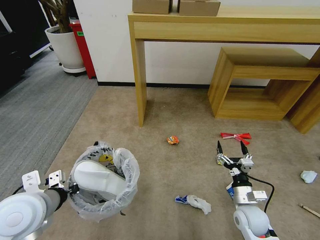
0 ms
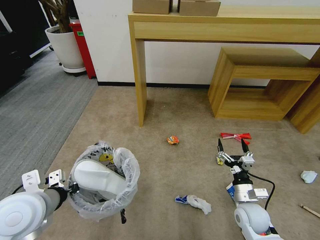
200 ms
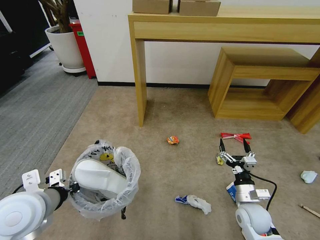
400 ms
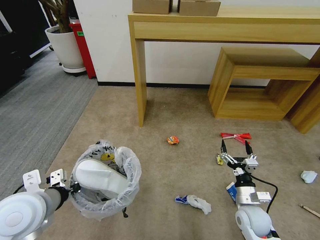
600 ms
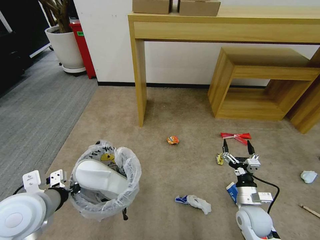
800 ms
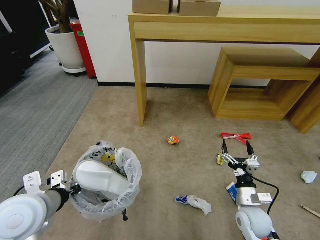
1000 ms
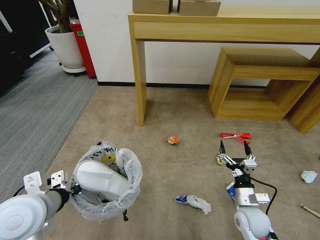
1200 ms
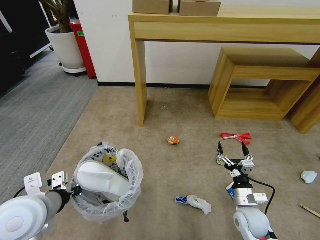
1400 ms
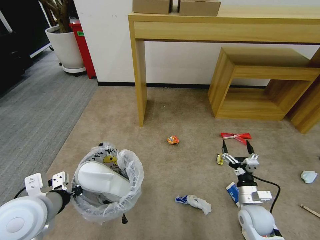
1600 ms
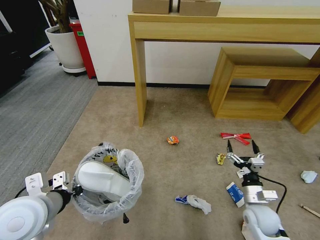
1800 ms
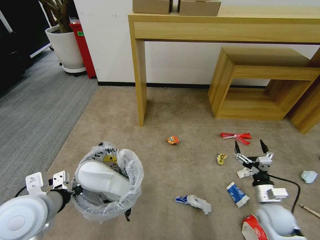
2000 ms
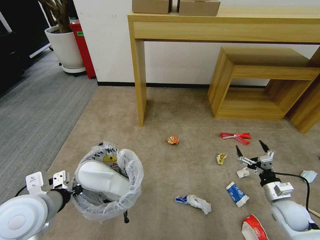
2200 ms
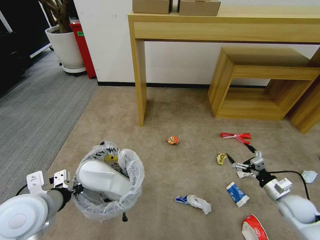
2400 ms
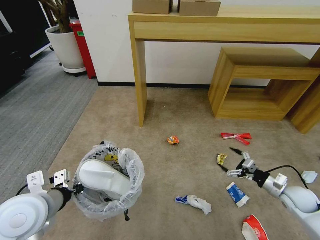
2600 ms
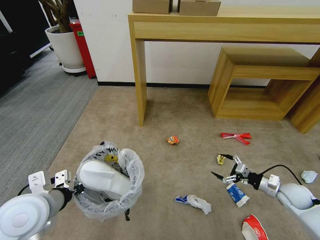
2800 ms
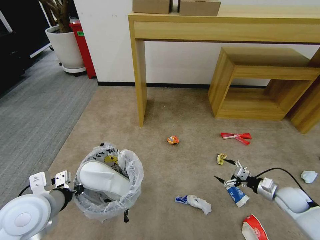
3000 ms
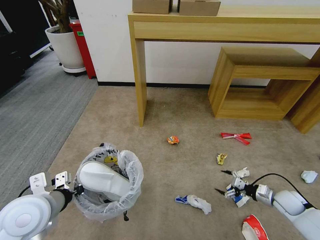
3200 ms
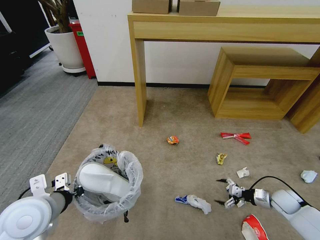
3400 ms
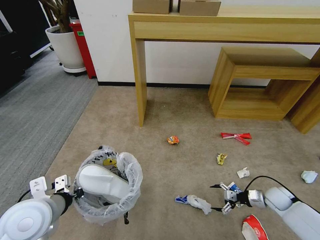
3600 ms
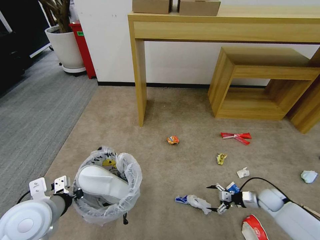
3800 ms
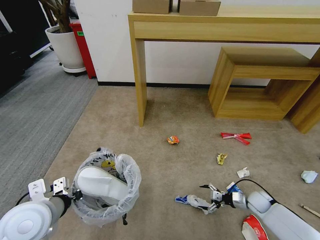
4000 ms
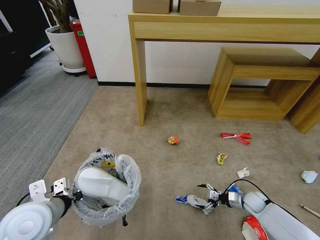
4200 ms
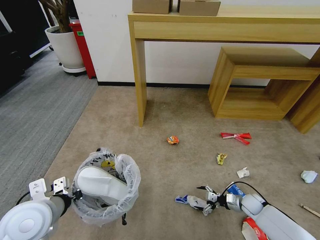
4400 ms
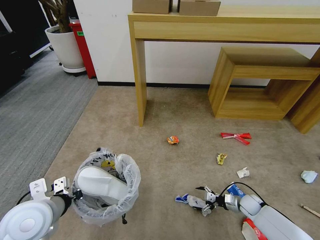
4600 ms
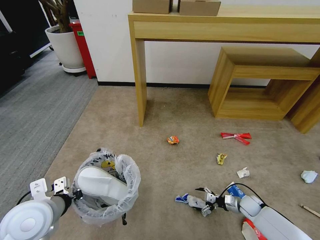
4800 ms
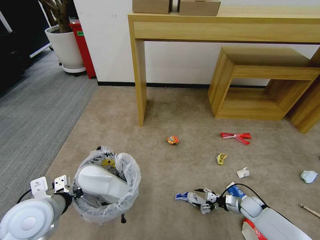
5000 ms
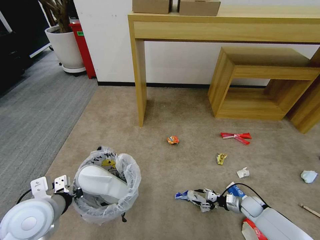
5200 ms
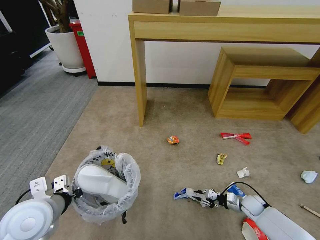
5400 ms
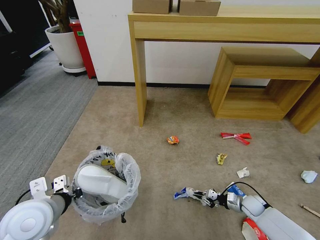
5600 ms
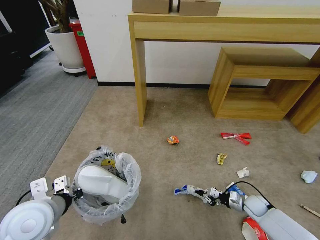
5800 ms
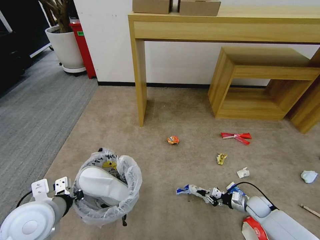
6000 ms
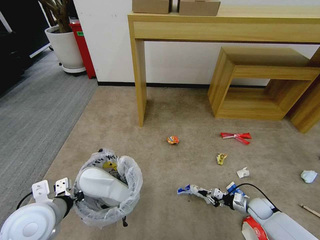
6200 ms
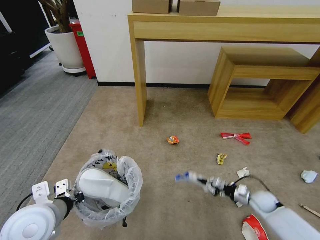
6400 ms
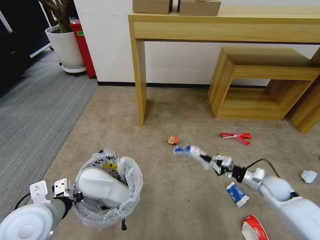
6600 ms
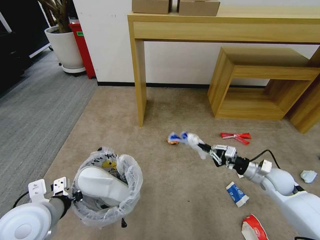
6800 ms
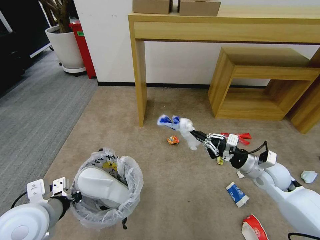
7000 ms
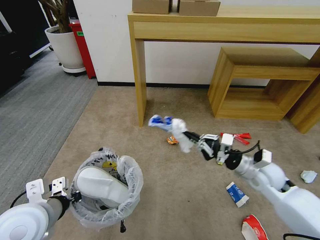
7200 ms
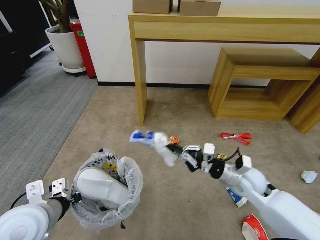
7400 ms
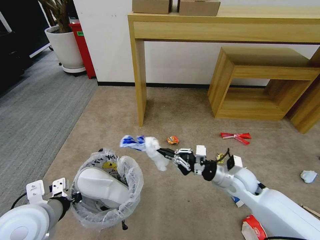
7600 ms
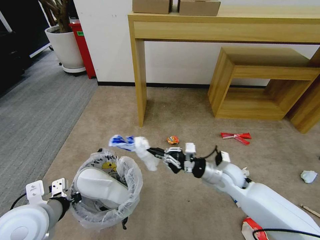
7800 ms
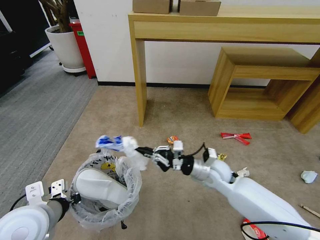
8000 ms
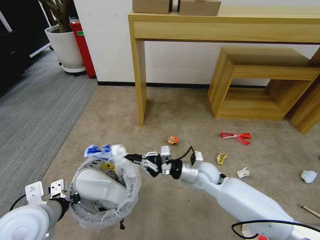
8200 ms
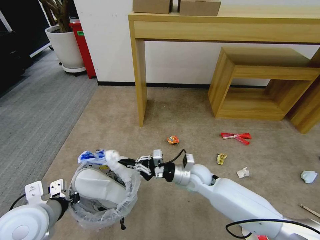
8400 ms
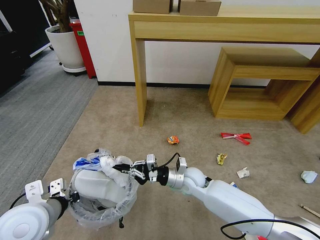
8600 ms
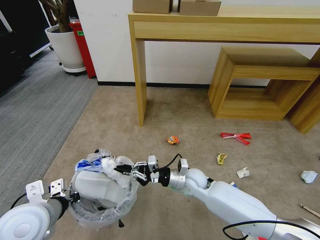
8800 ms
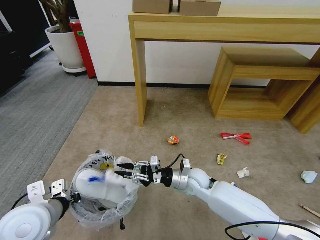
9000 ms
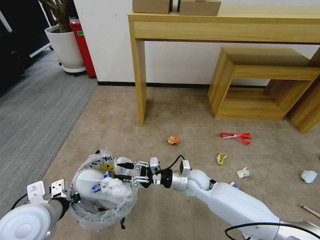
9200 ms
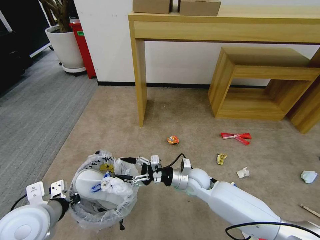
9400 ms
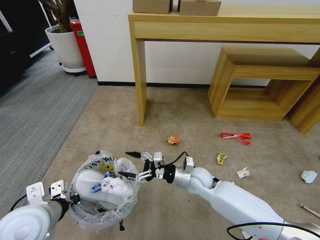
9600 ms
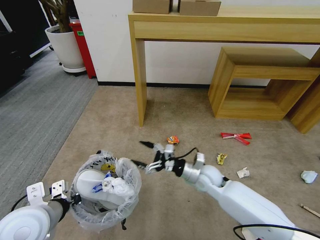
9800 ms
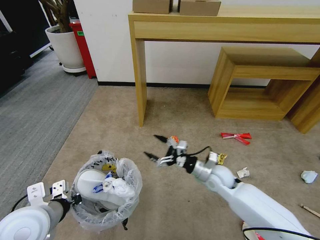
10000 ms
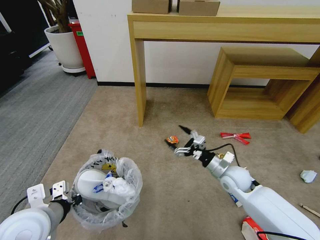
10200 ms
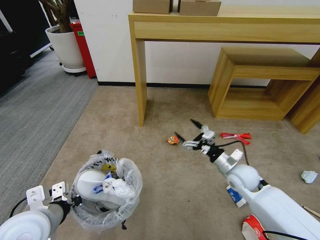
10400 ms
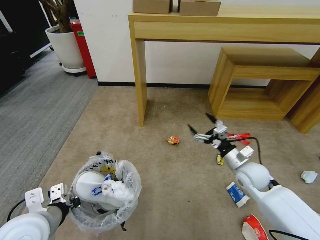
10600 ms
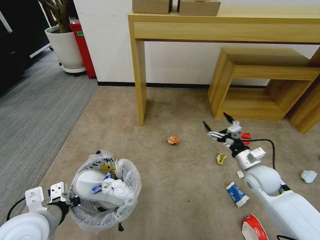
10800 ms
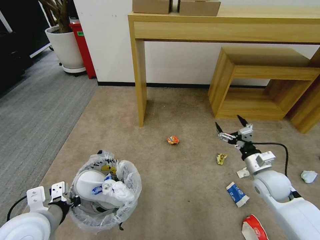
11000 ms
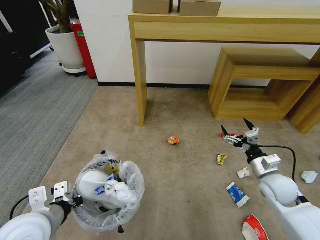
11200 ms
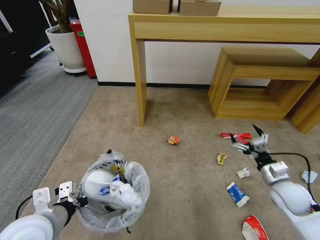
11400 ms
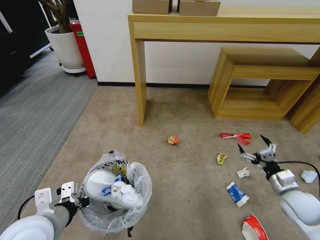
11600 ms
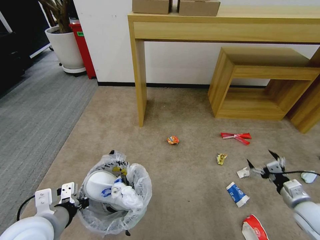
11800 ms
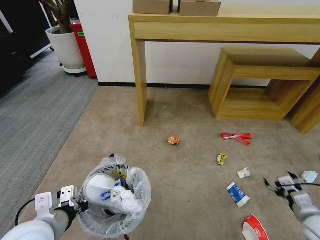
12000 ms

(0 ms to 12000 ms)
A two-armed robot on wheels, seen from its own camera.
Task of the whole recording: Pick up the trash bin and place the garbage on the floor into it.
0 ms - 1600 ms: The grippers move only a little.
1600 ms - 3000 ms: The right gripper travels to the right by roughly 15 cm.
3000 ms - 4400 ms: The right gripper moves downward and to the left, approximately 15 cm.
4400 ms - 6000 ms: The right gripper closes up.
6000 ms - 7600 ms: The right gripper travels upward and to the left by about 30 cm.
7600 ms - 9000 ms: The right gripper shifts approximately 15 cm to the left and downward.
9000 ms - 10400 ms: The right gripper moves to the right, about 15 cm, and opens its fingers.
10400 ms - 12000 ms: The right gripper is displaced to the right and backward by roughly 25 cm.

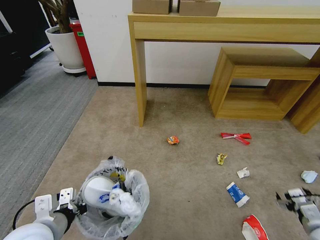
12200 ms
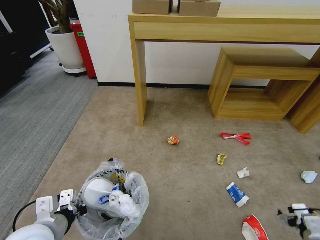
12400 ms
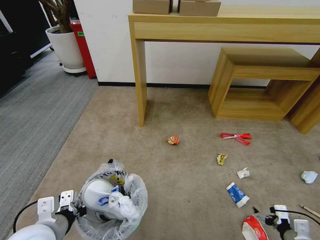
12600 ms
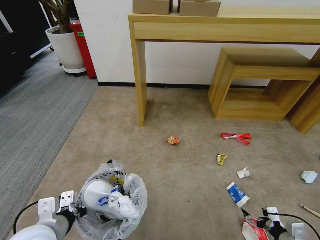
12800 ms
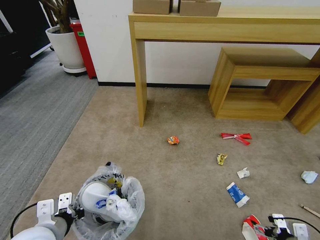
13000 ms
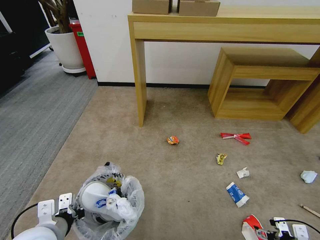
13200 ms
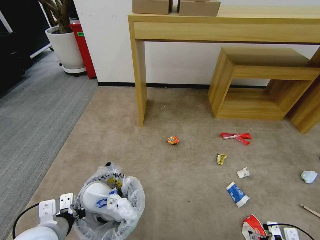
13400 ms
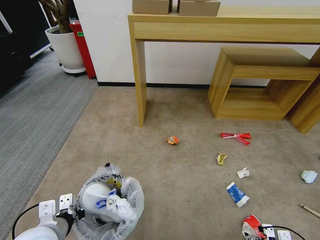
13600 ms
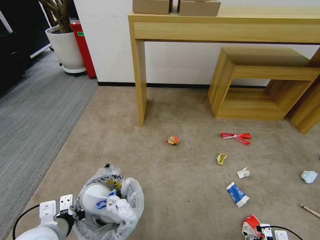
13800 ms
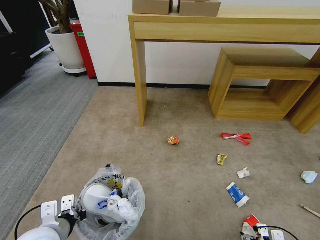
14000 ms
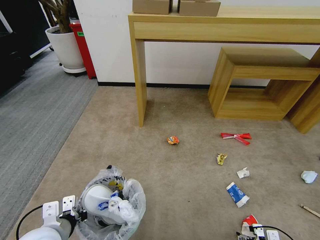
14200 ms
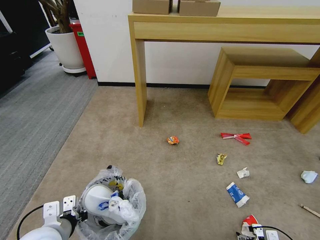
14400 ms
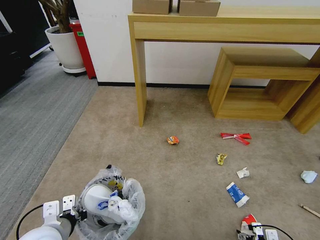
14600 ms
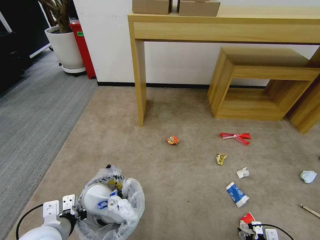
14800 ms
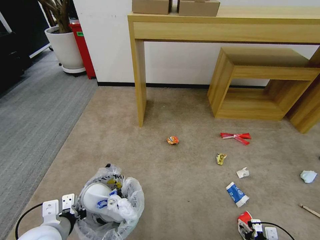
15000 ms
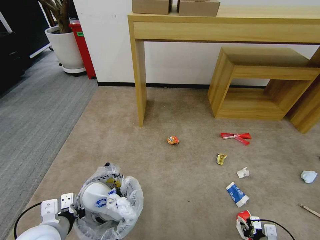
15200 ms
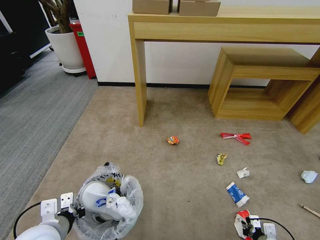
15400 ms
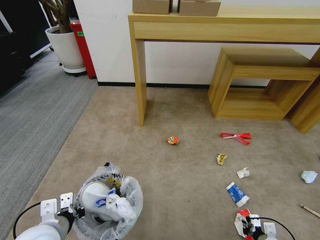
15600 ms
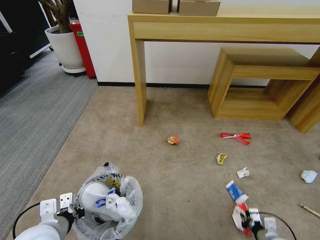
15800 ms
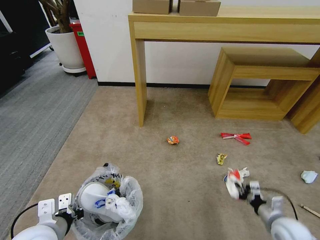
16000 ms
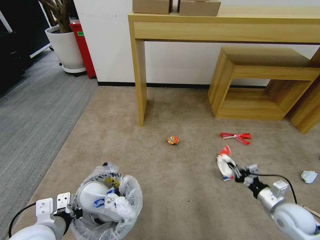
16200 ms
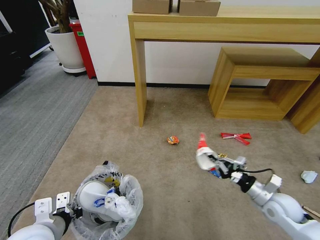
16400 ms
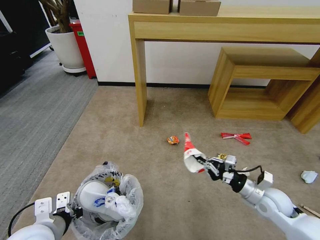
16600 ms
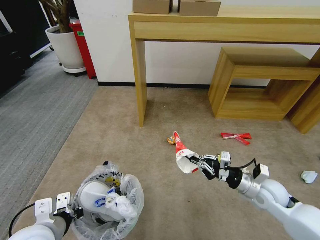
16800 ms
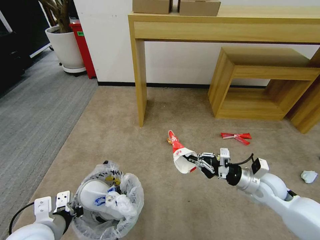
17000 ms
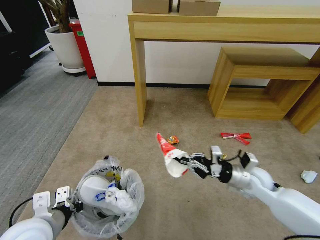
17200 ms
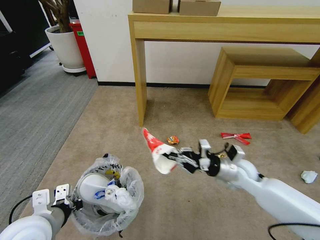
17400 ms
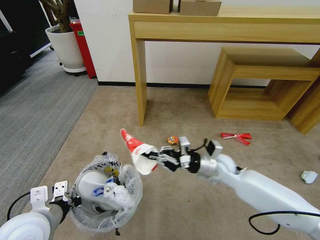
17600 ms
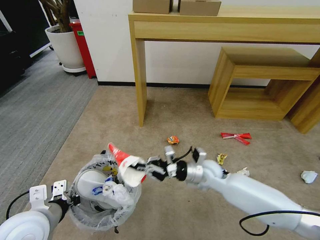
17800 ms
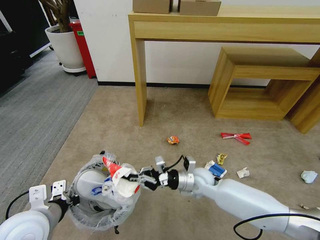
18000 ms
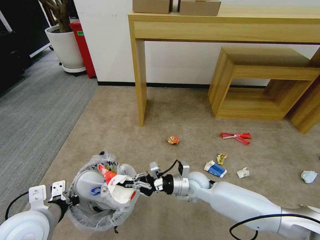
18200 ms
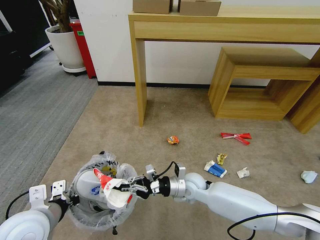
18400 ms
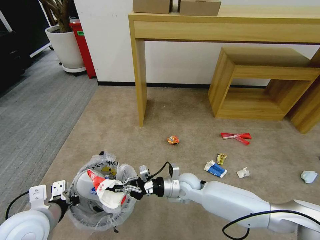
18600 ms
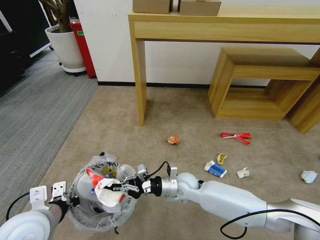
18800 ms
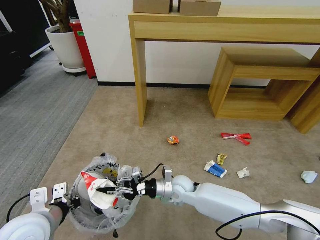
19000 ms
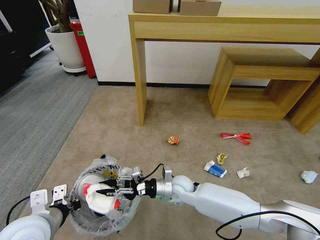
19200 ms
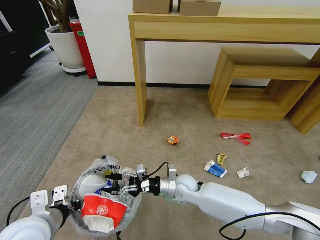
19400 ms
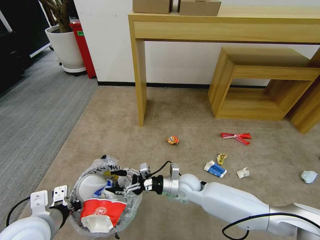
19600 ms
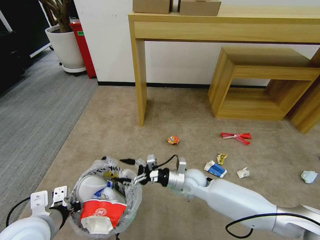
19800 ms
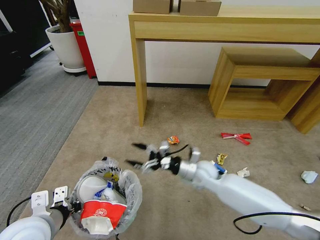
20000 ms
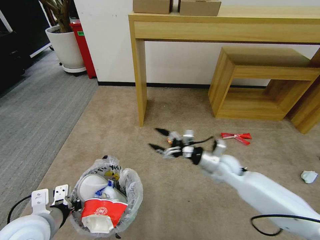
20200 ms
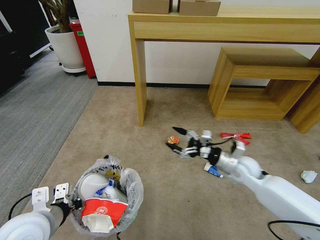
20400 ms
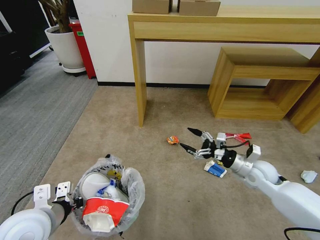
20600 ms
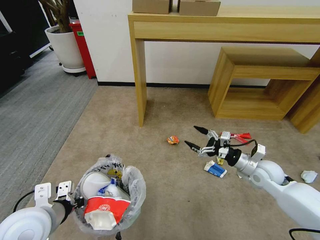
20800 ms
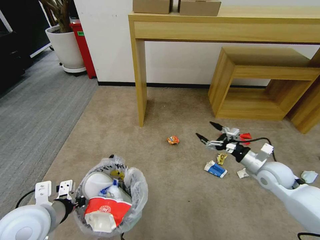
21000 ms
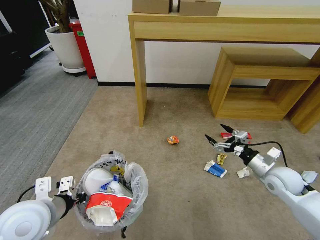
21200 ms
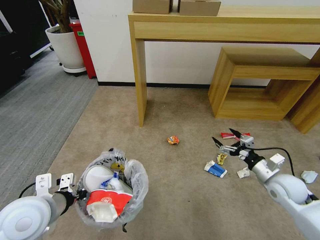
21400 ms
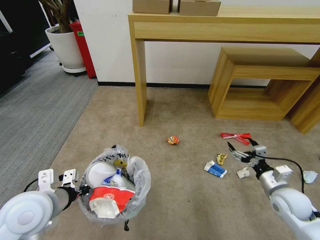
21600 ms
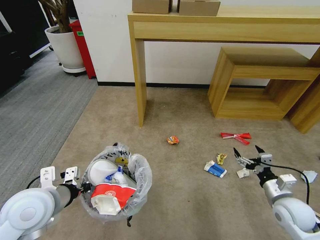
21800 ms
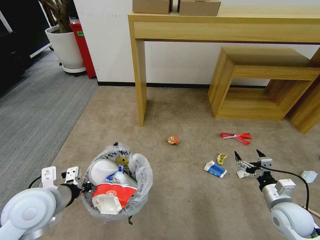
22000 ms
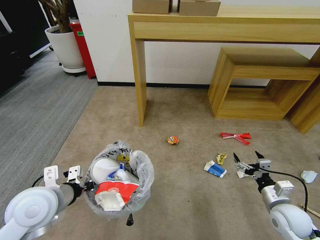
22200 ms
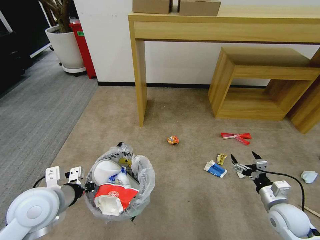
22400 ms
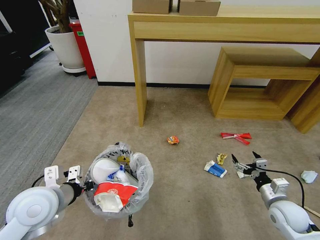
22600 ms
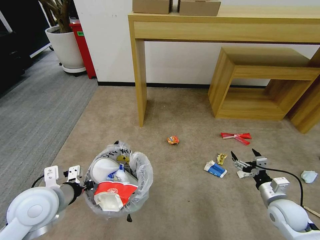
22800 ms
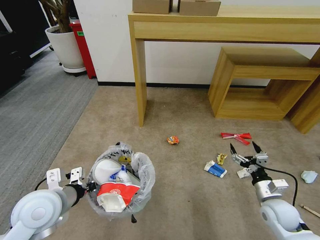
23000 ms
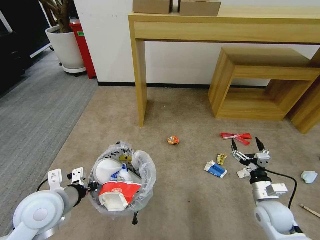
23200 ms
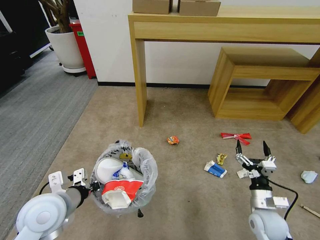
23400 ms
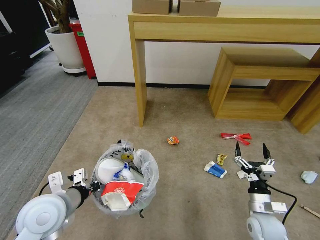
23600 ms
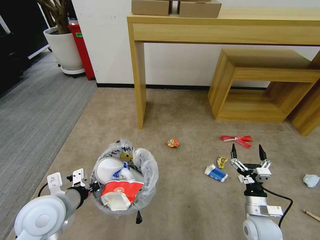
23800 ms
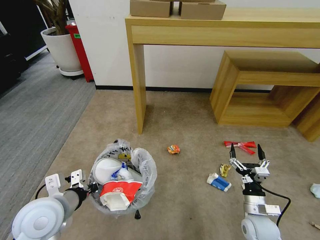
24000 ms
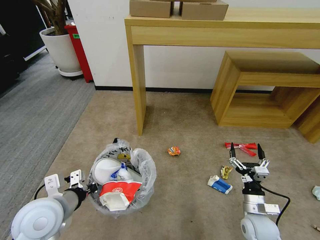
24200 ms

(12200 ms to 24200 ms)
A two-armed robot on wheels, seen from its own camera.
Task of the whole recording: Pick up the trash bin and place the garbage on the floor into it.
12200 ms - 13800 ms: The right gripper shifts approximately 10 cm downward and to the left.
13800 ms - 15200 ms: The right gripper closes.
15200 ms - 16600 ms: The right gripper travels upward and forward by some 20 cm.
16600 ms - 18200 ms: The right gripper moves to the left, approximately 20 cm.
18200 ms - 19800 ms: The right gripper opens up.
19800 ms - 21200 ms: The right gripper moves to the right, about 30 cm.
21200 ms - 22600 ms: The right gripper is displaced backward and downward by some 10 cm.
22600 ms - 24200 ms: The right gripper moves to the left, about 10 cm.
